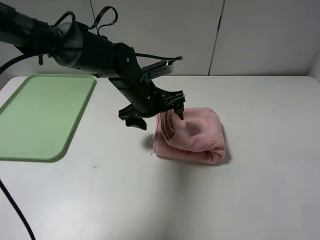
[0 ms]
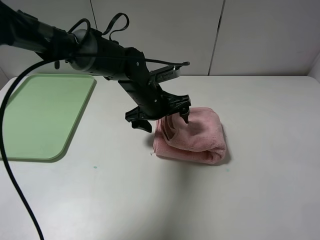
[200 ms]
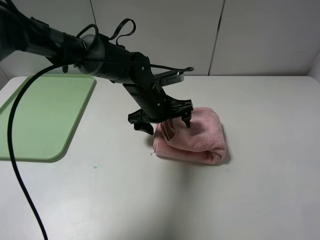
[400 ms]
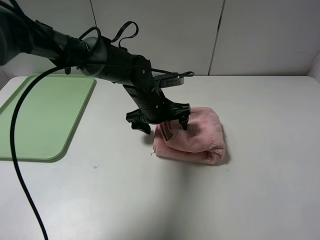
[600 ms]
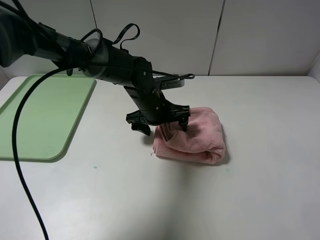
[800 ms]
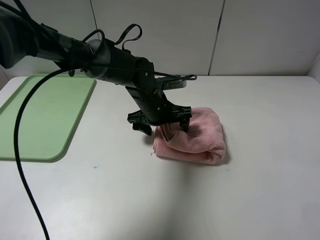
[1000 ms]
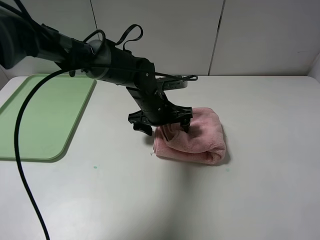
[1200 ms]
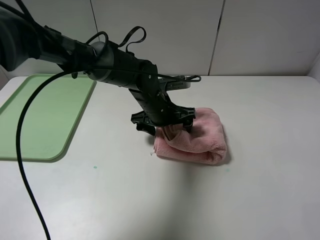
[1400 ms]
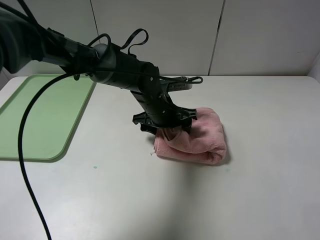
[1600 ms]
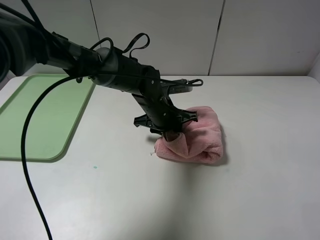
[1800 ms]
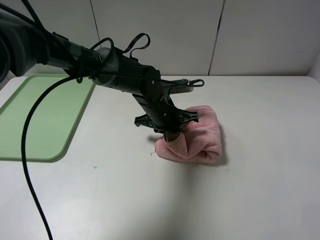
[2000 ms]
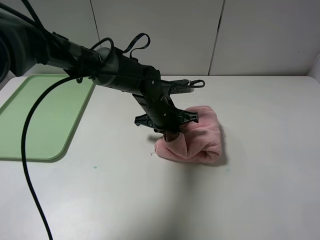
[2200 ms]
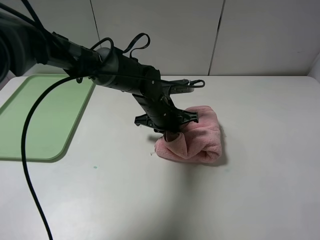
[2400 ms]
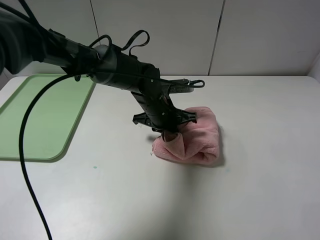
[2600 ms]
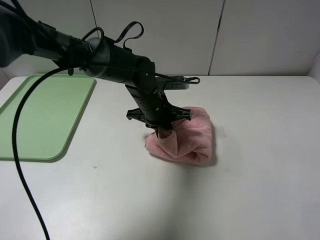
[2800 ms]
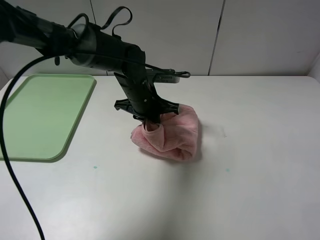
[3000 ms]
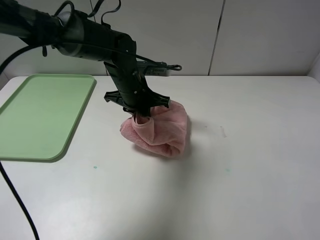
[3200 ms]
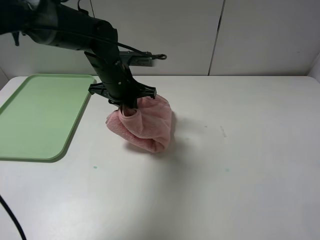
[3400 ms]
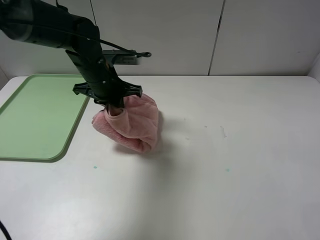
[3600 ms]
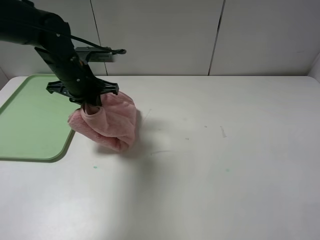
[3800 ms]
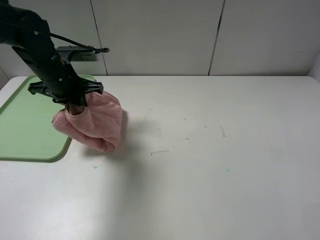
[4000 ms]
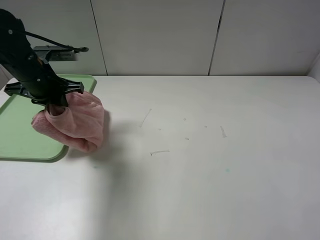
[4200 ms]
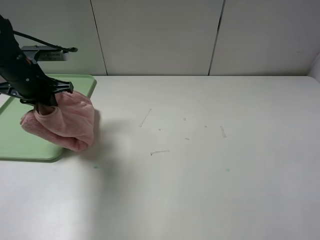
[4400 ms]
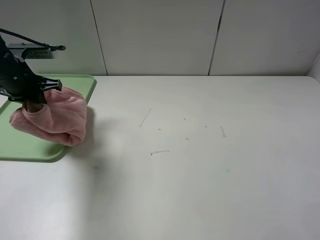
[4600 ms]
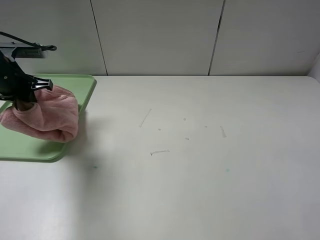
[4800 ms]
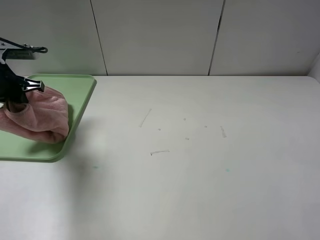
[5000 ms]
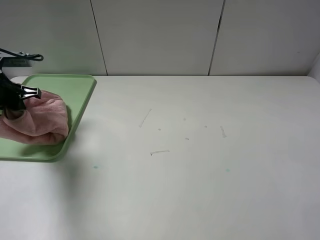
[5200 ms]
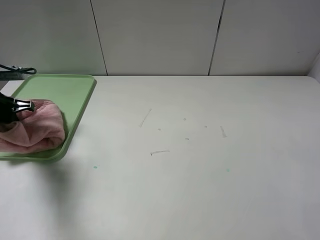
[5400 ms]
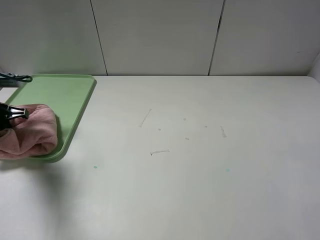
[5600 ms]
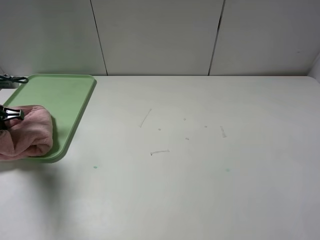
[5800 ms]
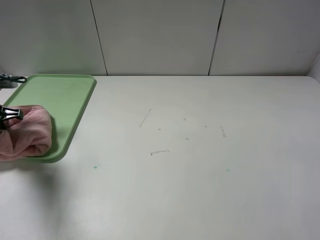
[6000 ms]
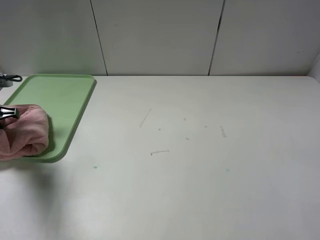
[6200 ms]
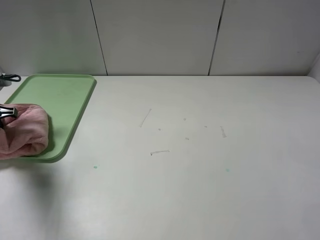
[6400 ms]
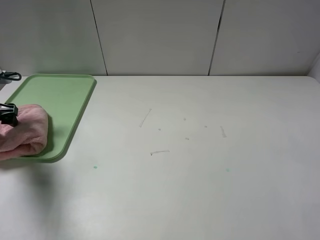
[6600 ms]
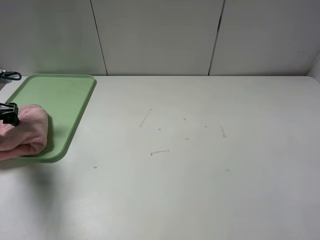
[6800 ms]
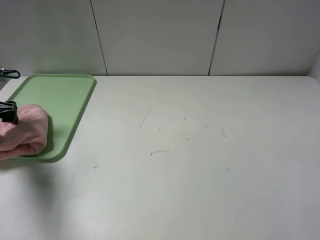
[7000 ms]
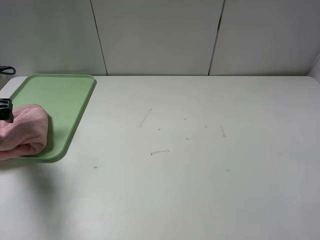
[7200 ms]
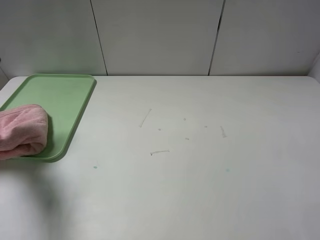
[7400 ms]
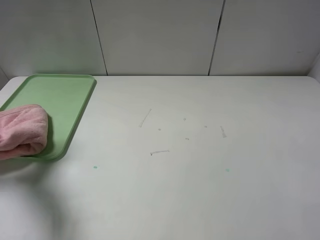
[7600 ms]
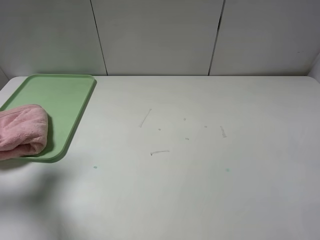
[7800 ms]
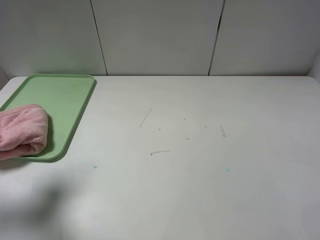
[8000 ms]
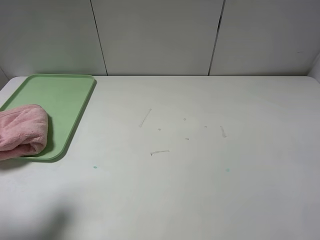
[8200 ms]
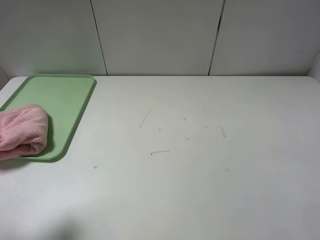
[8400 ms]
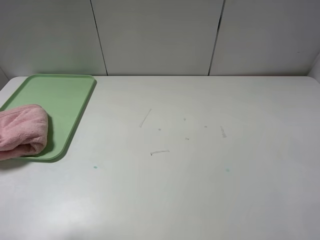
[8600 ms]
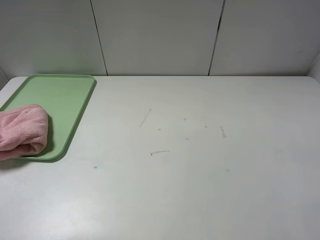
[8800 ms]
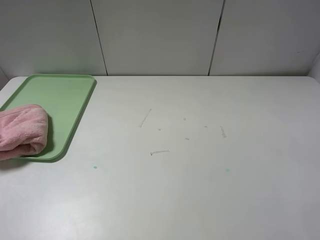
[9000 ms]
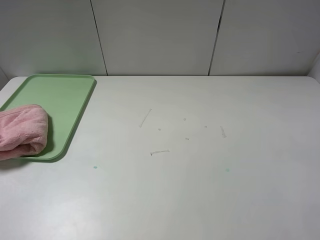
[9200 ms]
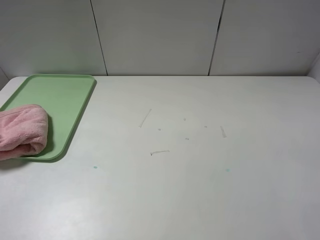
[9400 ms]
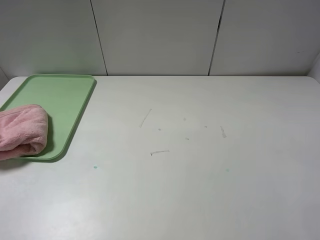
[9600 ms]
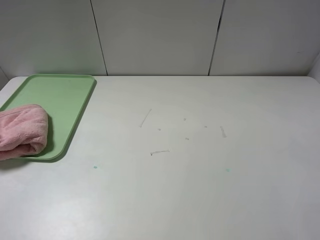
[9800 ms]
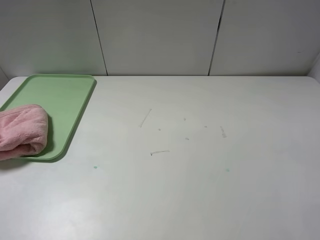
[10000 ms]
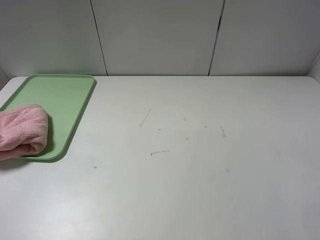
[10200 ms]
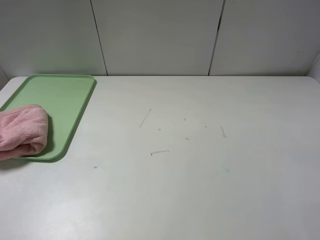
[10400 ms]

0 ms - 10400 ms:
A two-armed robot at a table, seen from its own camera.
Step, 0 ms - 7200 ms: Place the folded pink towel on the tray with the left gripper.
0 ms - 1400 ms: The grippers make only small movements.
1400 ms - 3000 ms: The left gripper ends up some 5 cm from where it was, and closes its fingers.
3000 ms - 4400 ms: The left gripper heads to the left, covering approximately 25 cm.
4400 ms - 6000 ms: The left gripper is displaced to the left by approximately 10 cm.
6000 ms - 7400 ms: The left gripper heads upward, covering approximately 5 cm, and opens.
7400 ms - 9000 ms: The left gripper moves backward, approximately 25 cm.
